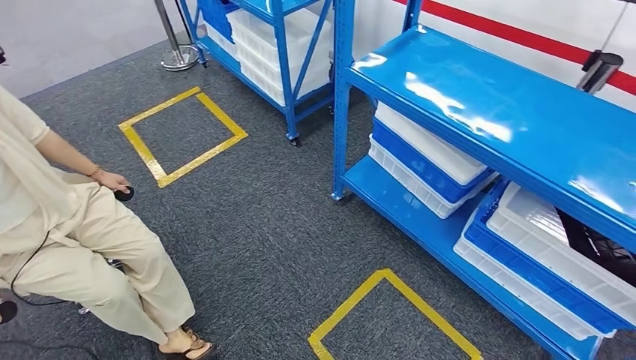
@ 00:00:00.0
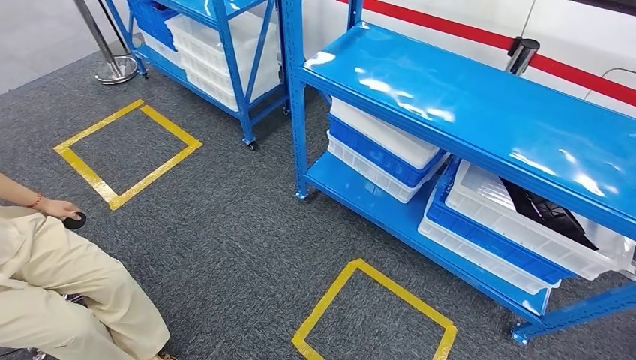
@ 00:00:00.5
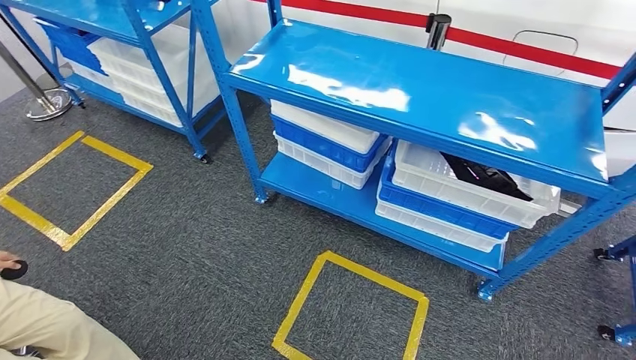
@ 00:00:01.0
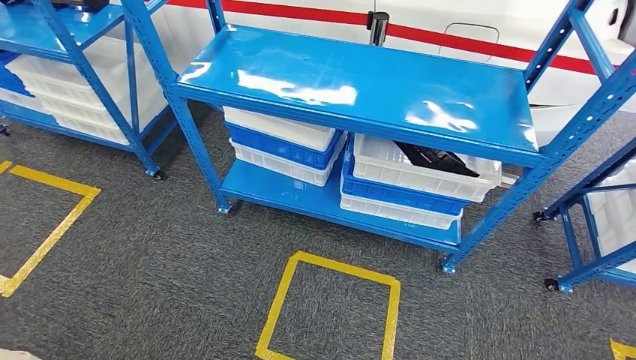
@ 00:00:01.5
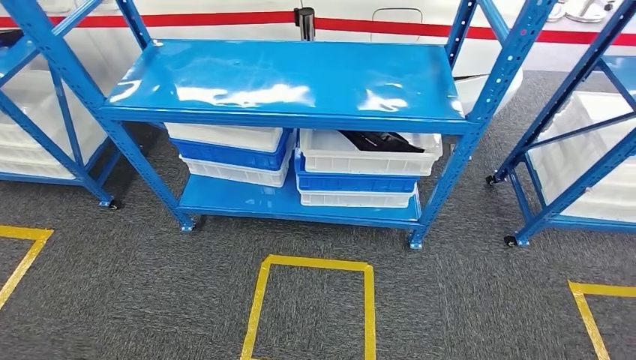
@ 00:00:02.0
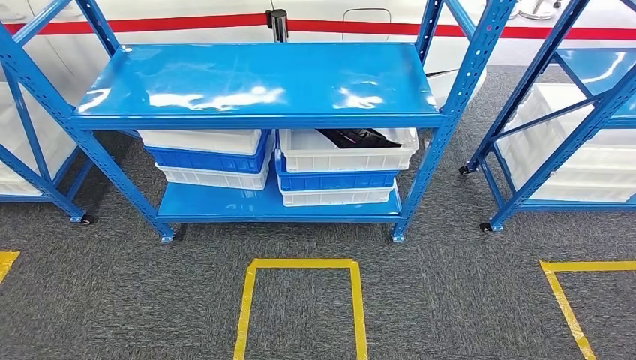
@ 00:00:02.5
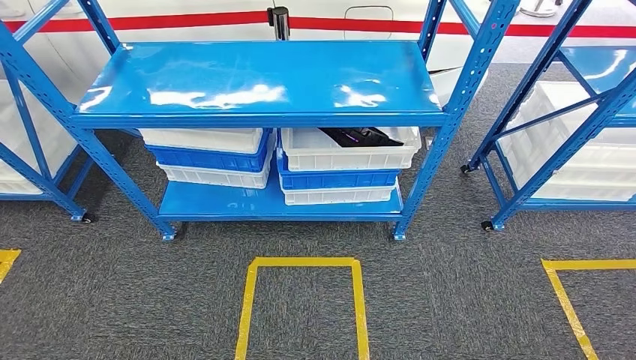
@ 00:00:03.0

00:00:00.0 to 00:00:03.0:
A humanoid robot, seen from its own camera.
Step, 00:00:00.0 to 00:00:03.0: Move to the initial position of the shelf.

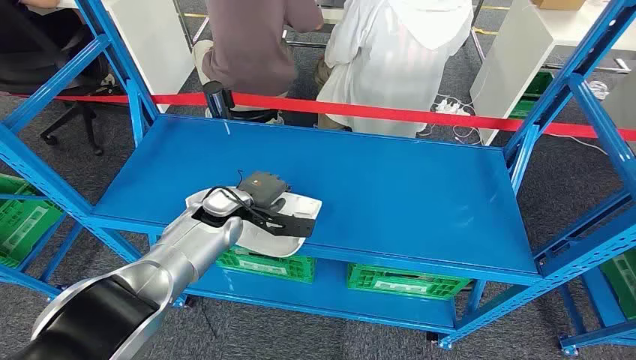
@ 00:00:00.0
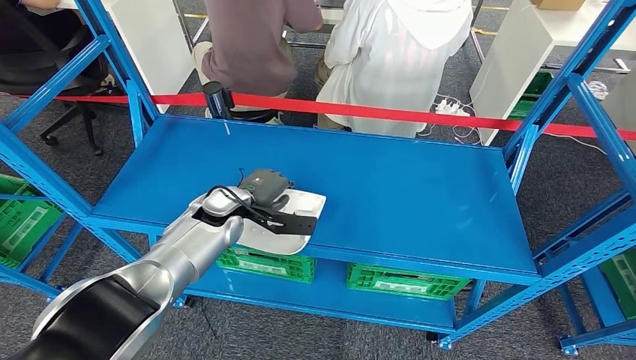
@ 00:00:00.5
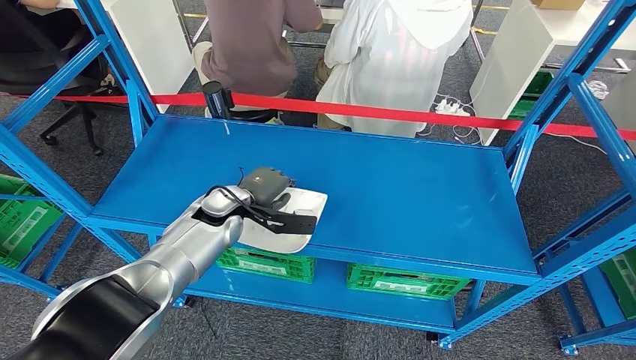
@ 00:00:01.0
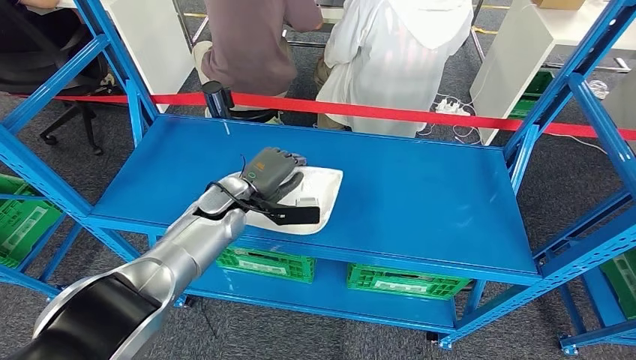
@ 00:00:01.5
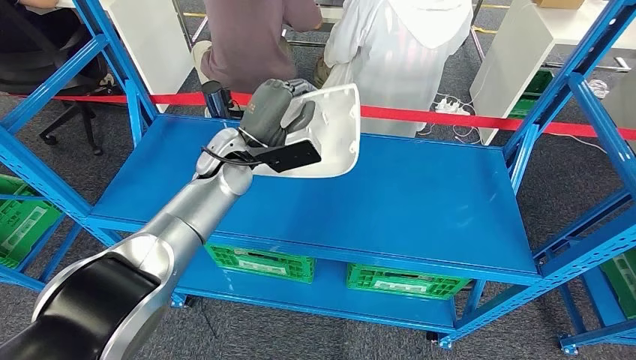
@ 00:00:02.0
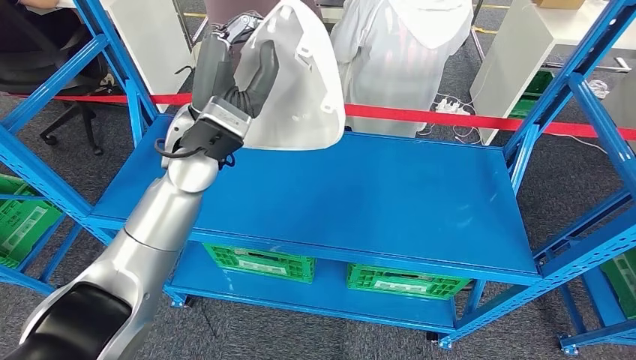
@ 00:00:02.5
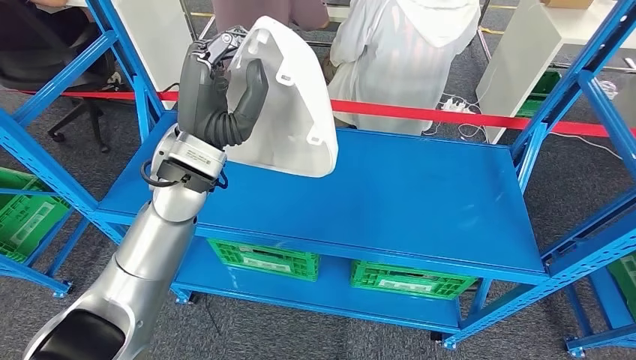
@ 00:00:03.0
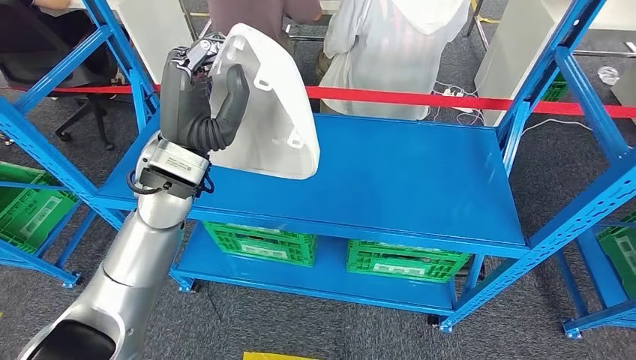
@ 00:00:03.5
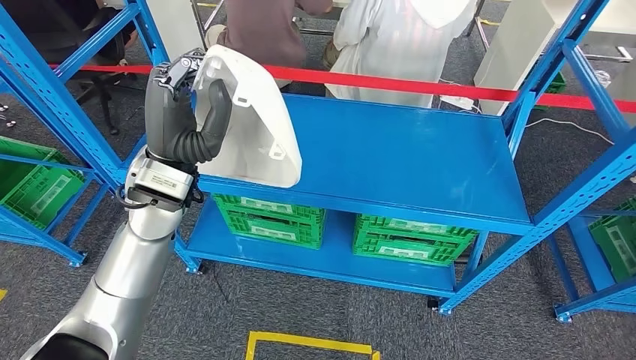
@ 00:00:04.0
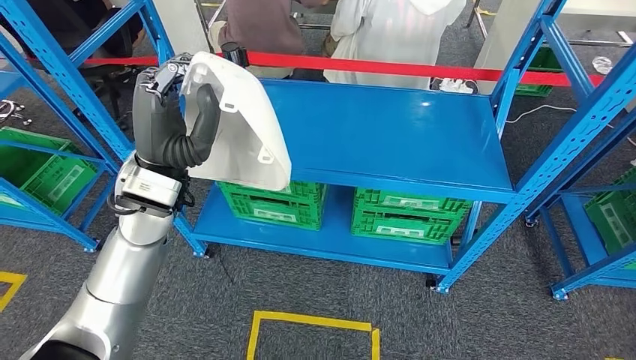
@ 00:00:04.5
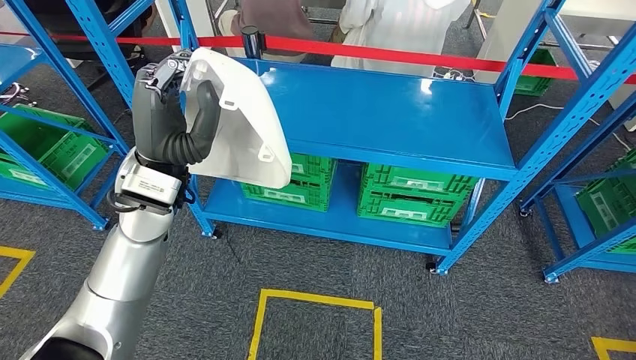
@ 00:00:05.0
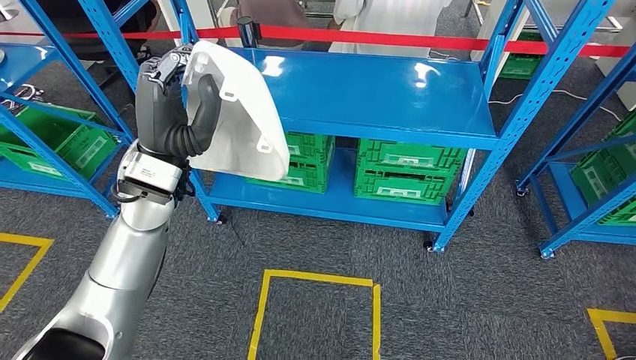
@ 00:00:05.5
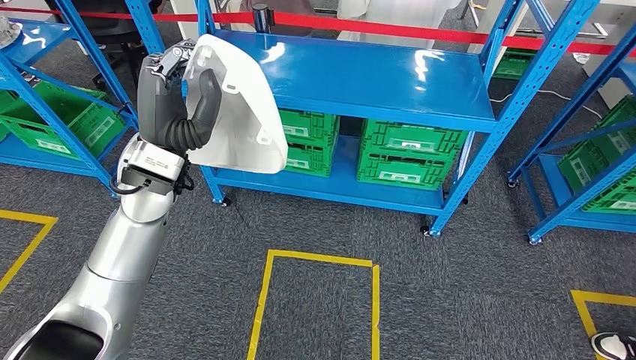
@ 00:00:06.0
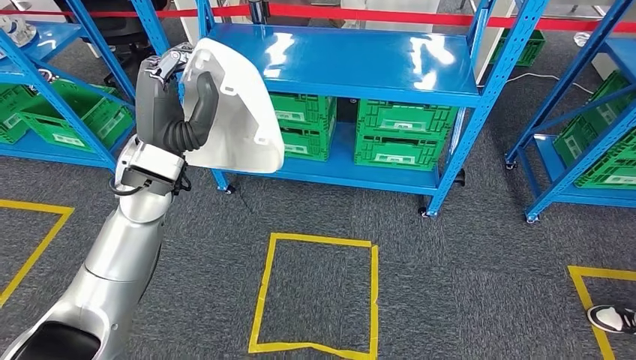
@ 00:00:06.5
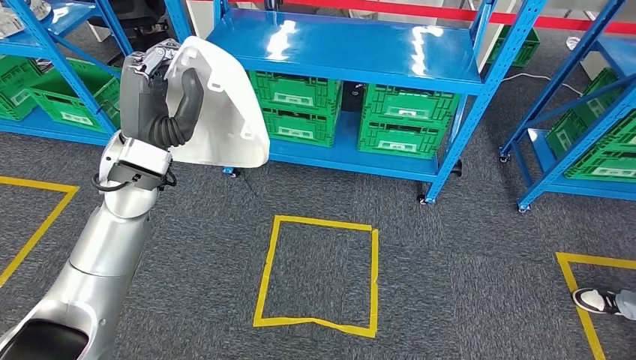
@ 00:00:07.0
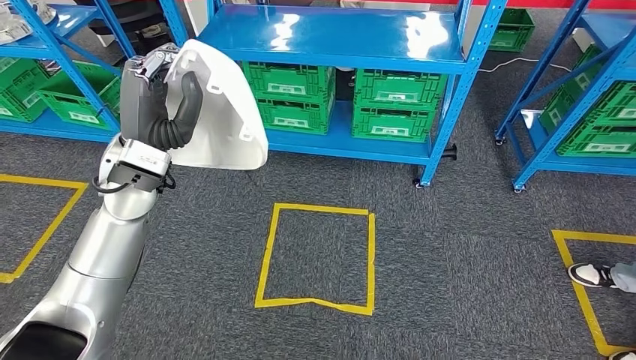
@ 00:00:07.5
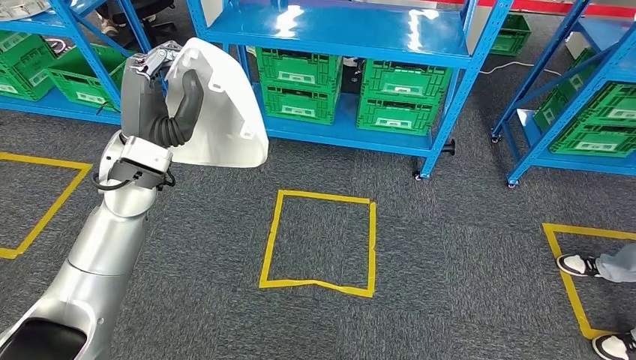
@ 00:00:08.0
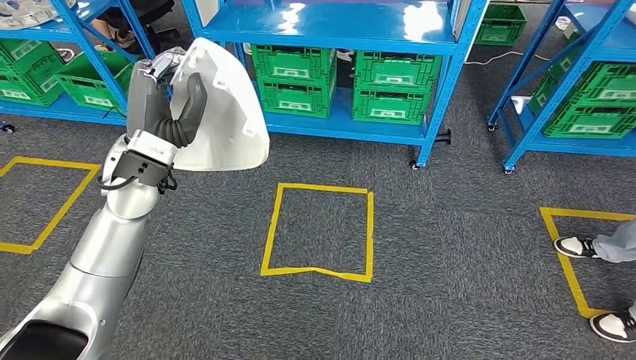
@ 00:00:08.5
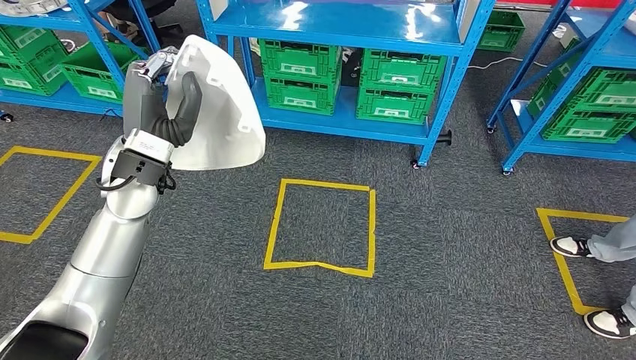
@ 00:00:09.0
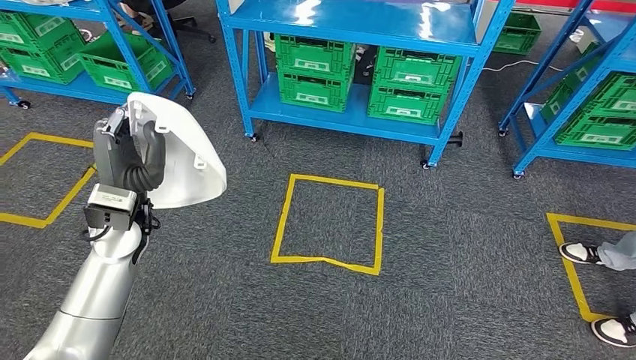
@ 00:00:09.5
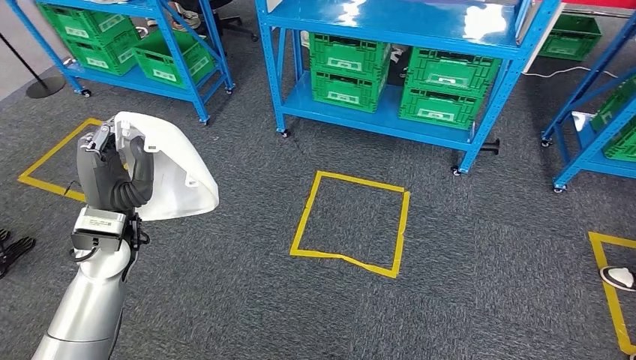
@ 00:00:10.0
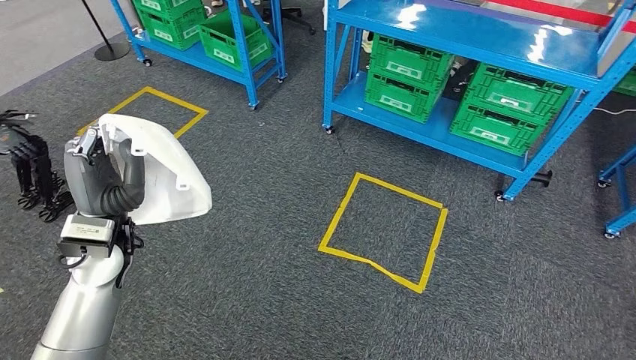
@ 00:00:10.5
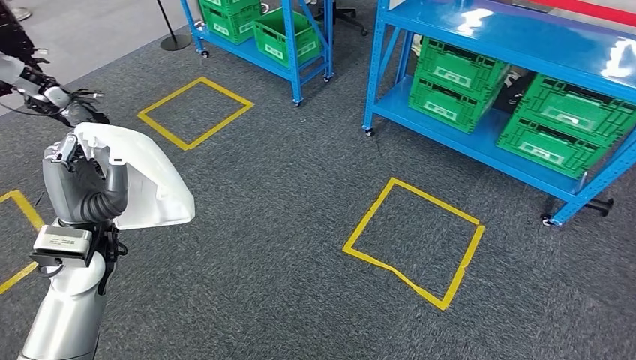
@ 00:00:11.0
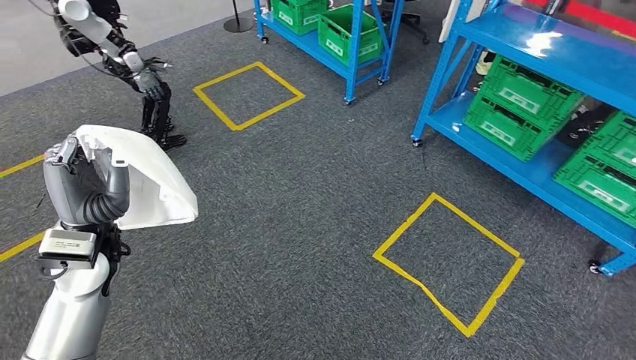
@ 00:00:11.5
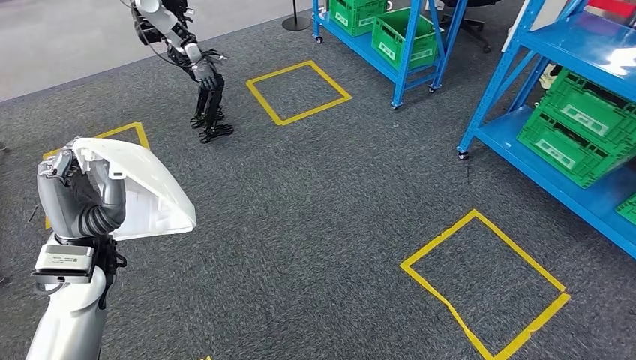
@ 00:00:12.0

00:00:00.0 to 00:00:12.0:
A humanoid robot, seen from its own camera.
Step, 00:00:00.0 to 00:00:04.0: Pick up the large material from the shelf.

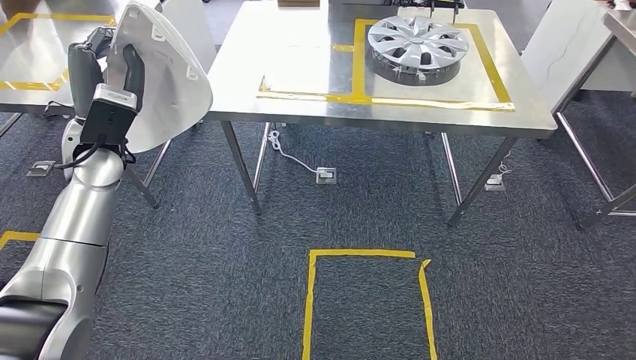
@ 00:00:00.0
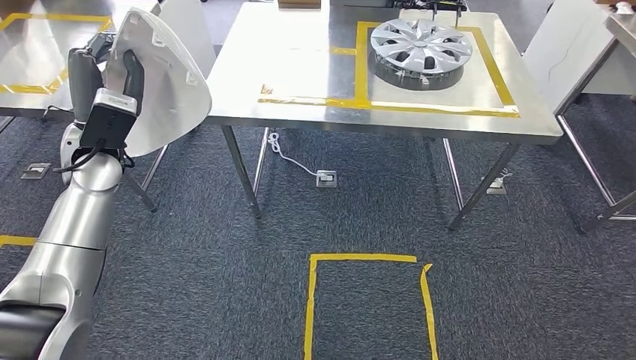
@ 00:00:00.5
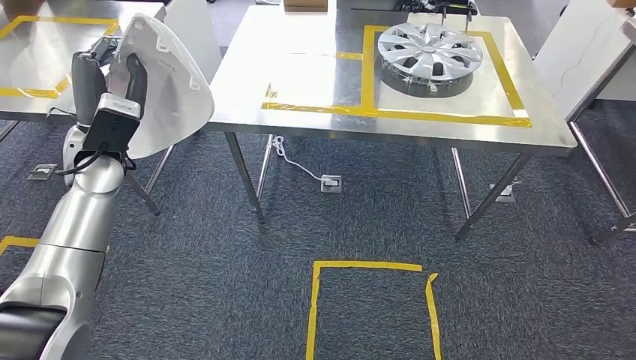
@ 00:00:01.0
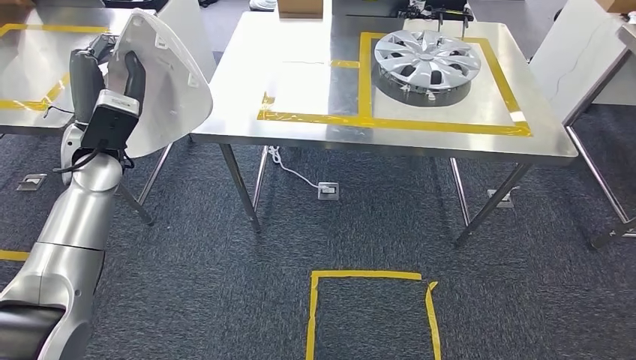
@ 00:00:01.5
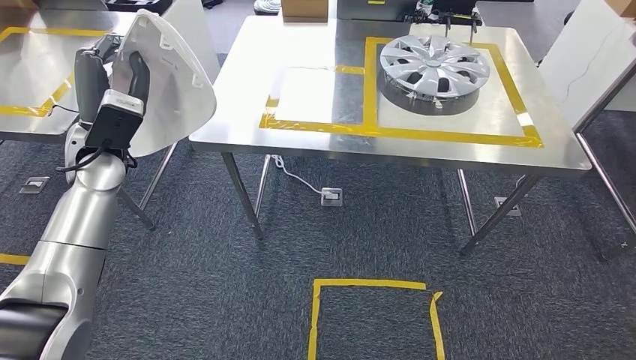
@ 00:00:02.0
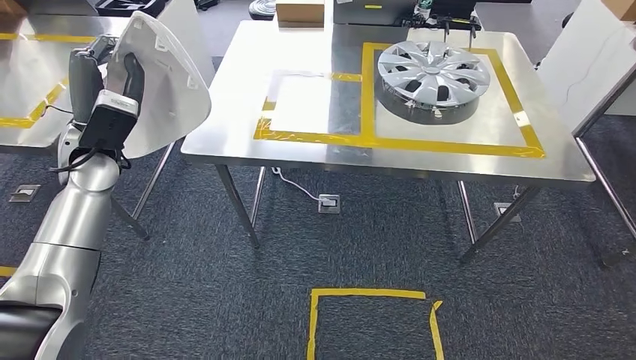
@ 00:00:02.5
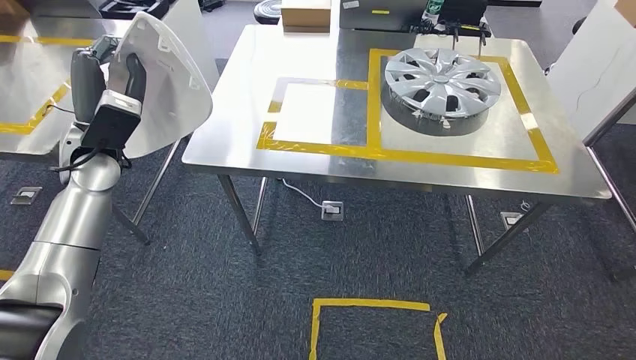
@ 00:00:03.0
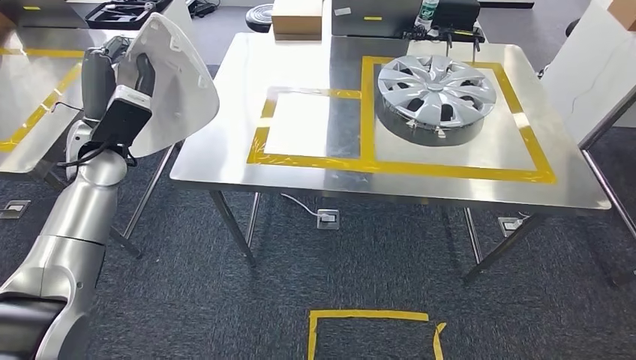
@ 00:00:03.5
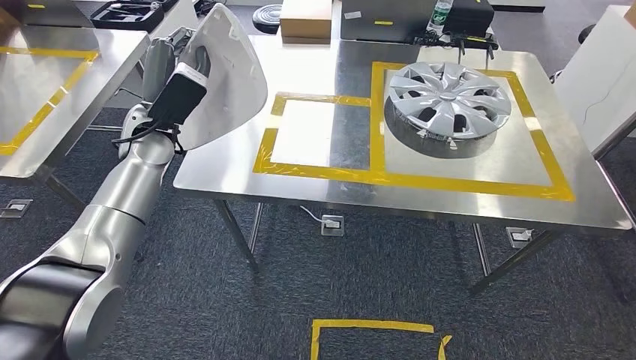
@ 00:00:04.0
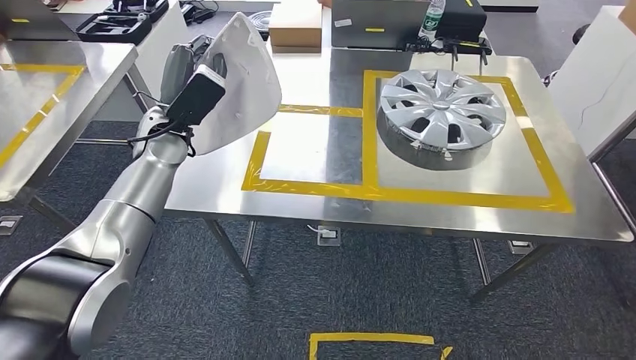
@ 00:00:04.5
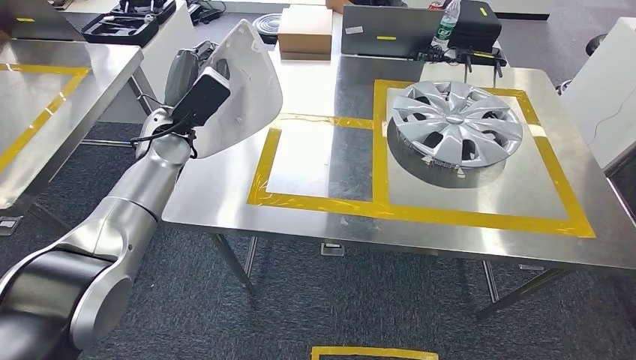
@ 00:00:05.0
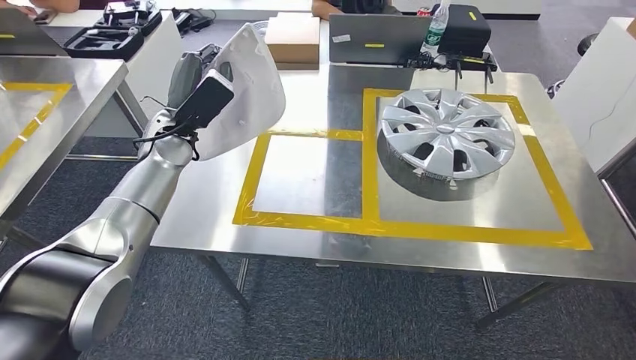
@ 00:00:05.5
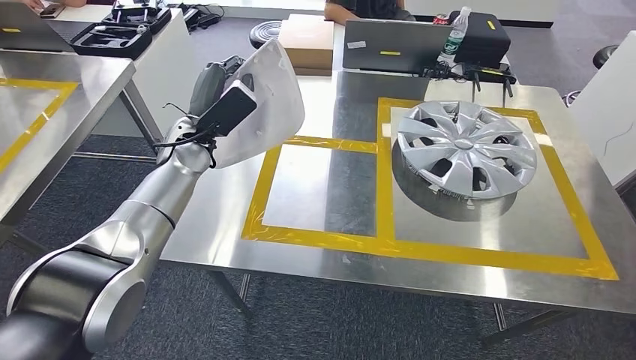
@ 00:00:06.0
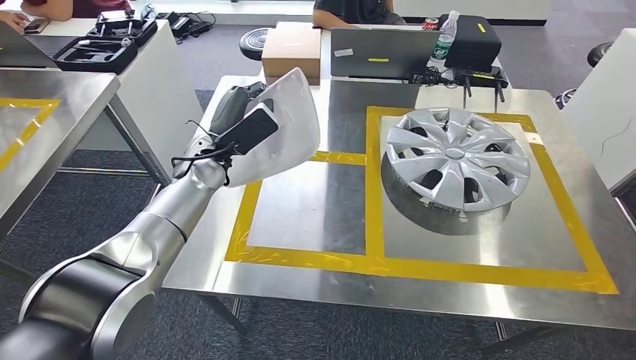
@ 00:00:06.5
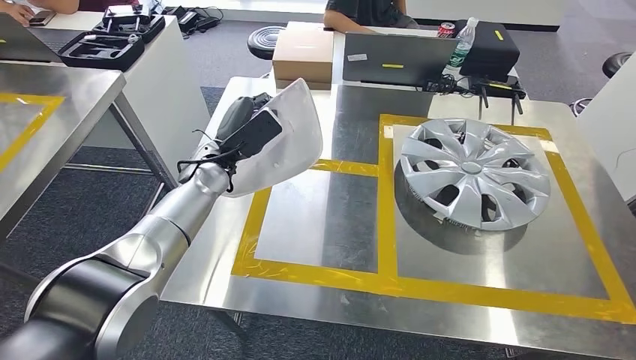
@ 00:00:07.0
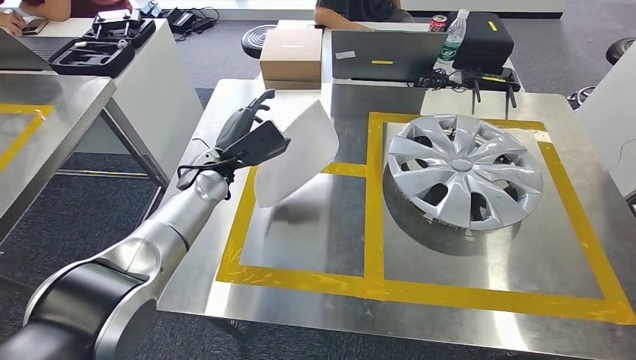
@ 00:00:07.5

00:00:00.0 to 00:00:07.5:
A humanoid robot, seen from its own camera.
Step, 00:00:00.0 to 00:00:03.0: Move the large material to the workbench.
